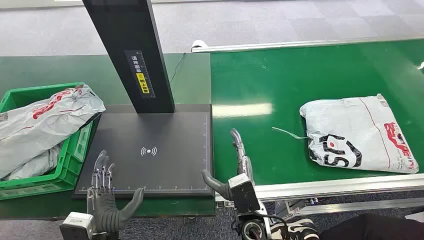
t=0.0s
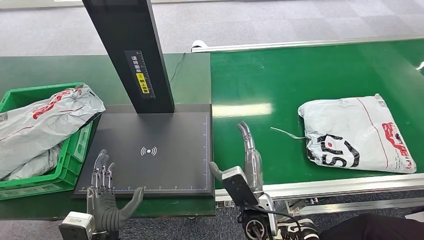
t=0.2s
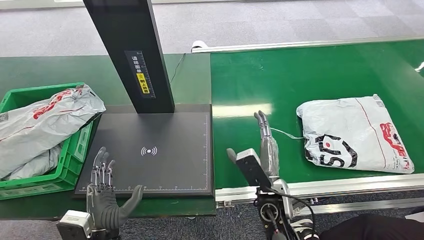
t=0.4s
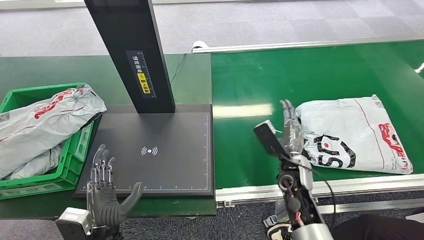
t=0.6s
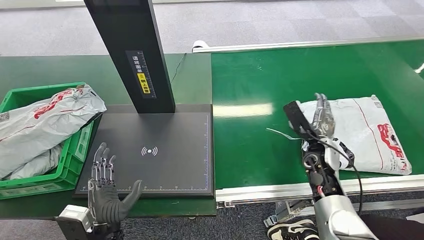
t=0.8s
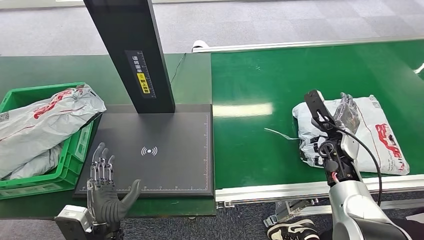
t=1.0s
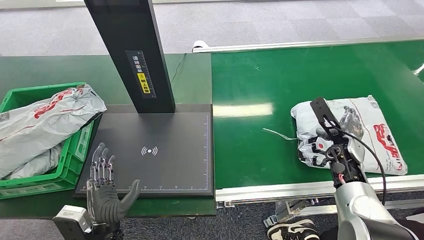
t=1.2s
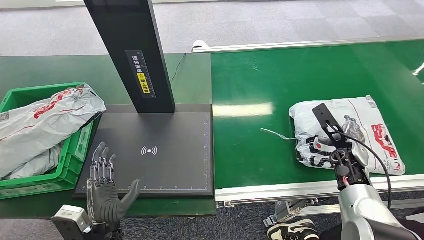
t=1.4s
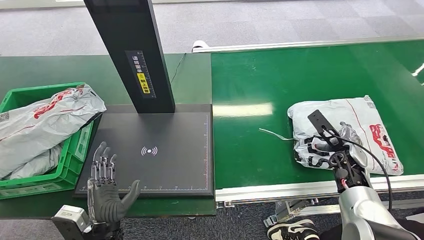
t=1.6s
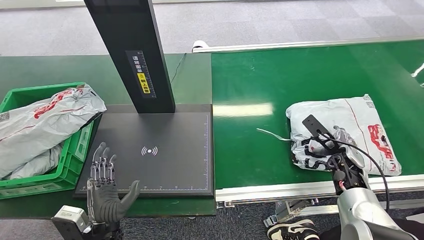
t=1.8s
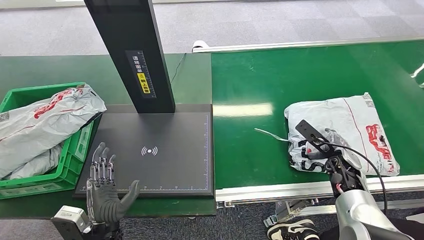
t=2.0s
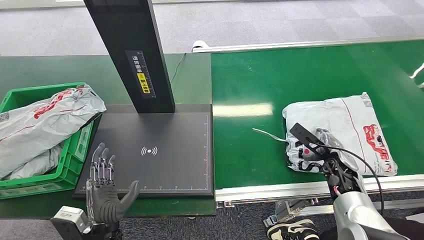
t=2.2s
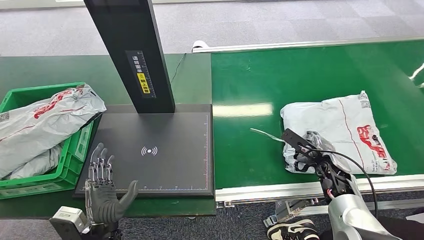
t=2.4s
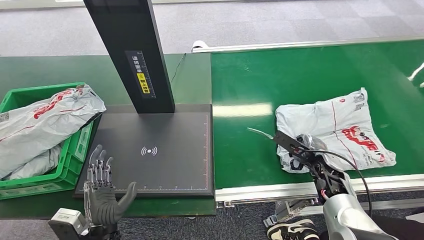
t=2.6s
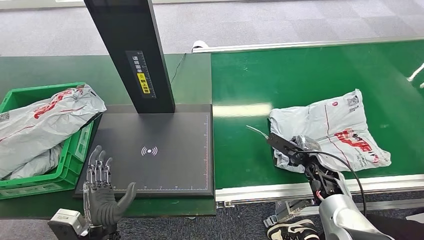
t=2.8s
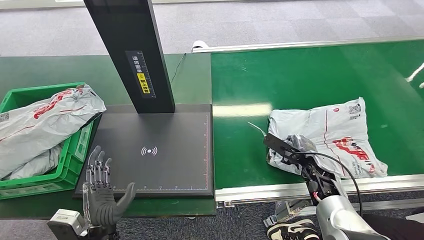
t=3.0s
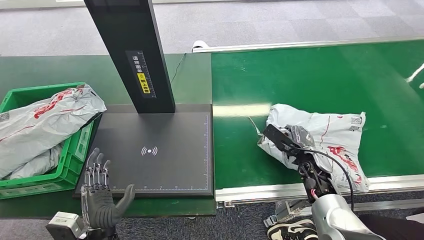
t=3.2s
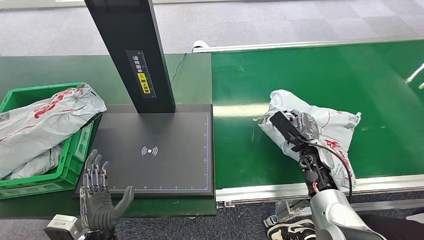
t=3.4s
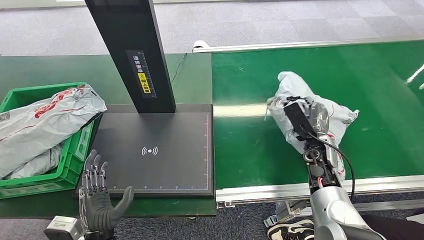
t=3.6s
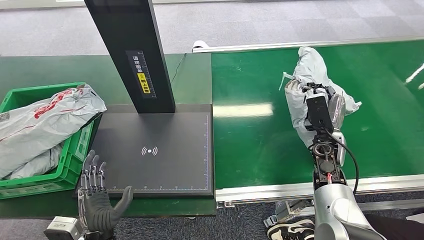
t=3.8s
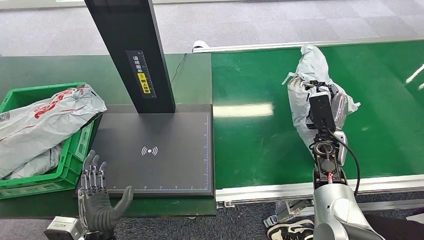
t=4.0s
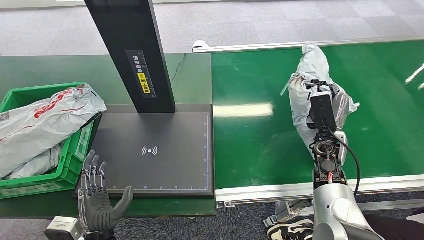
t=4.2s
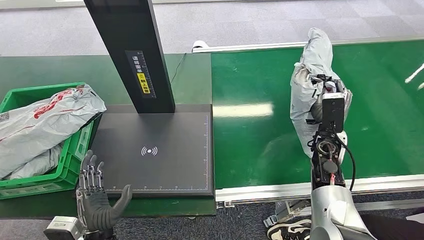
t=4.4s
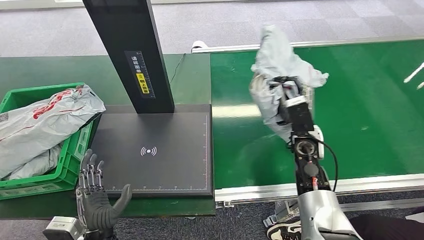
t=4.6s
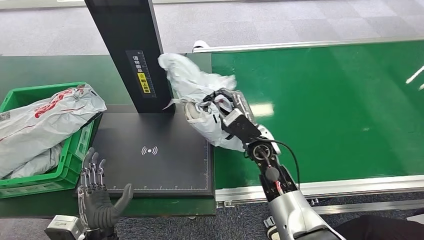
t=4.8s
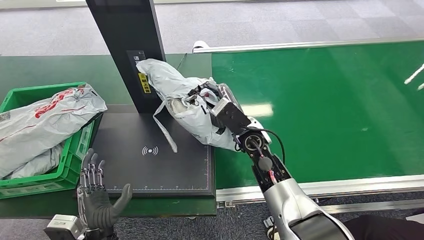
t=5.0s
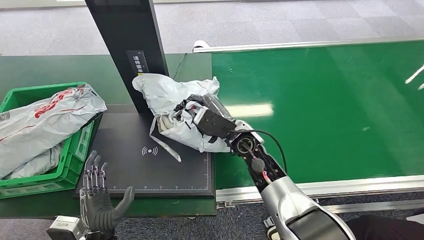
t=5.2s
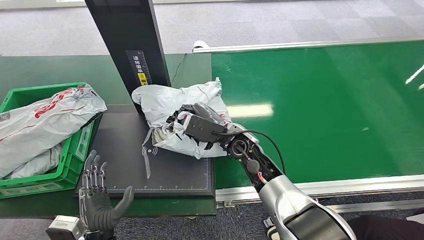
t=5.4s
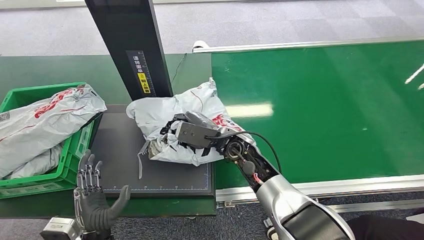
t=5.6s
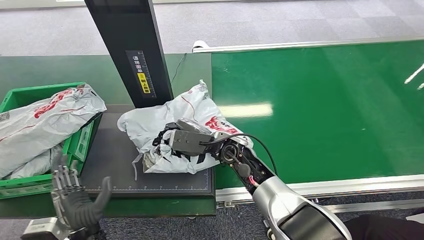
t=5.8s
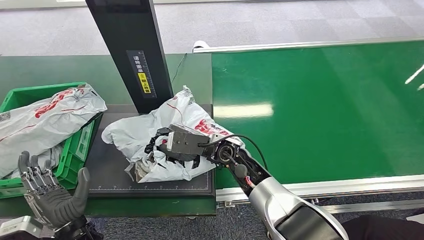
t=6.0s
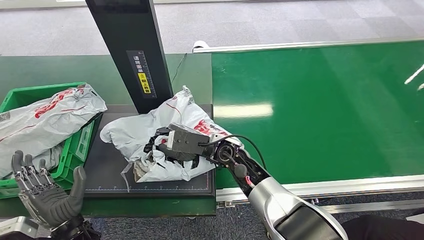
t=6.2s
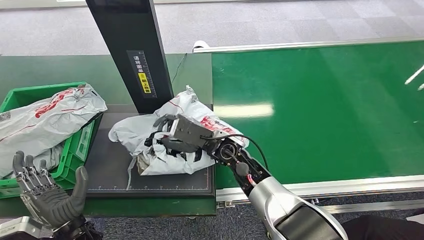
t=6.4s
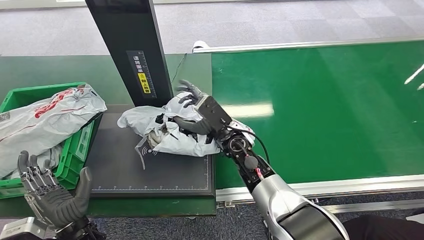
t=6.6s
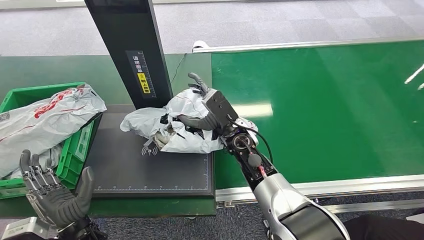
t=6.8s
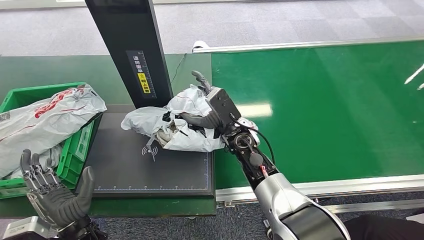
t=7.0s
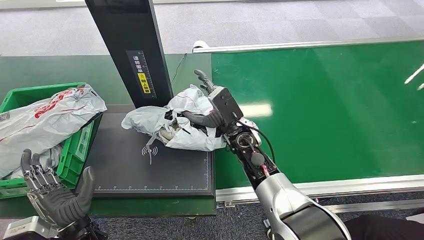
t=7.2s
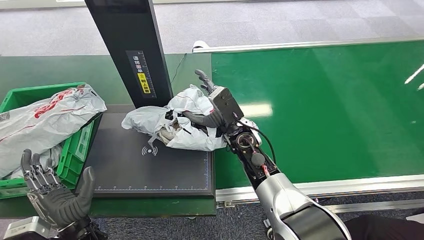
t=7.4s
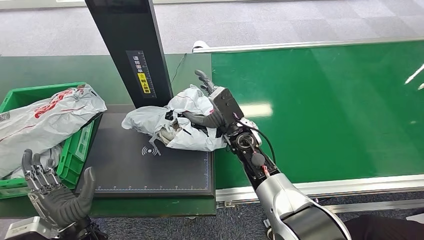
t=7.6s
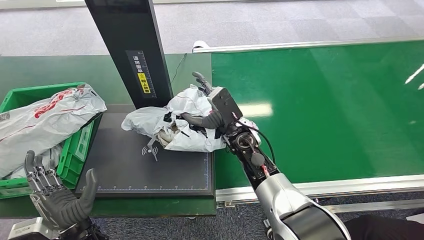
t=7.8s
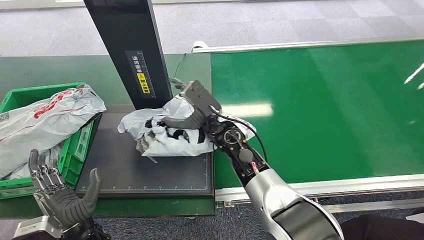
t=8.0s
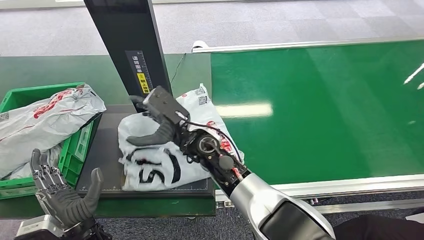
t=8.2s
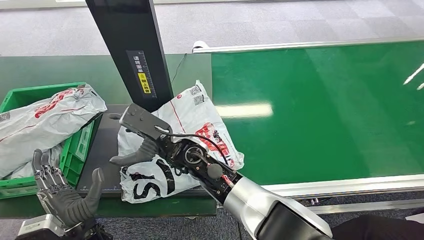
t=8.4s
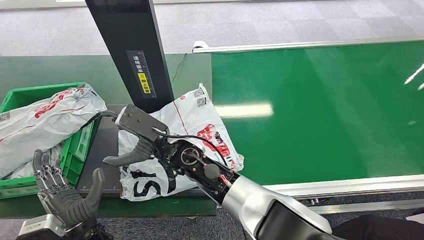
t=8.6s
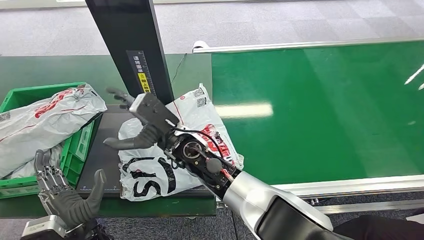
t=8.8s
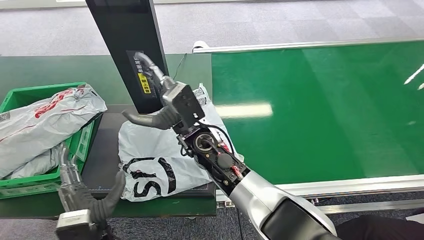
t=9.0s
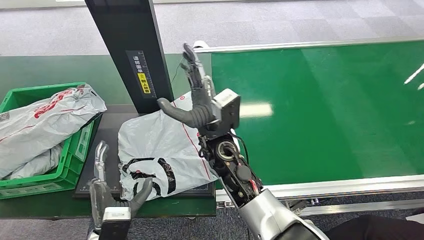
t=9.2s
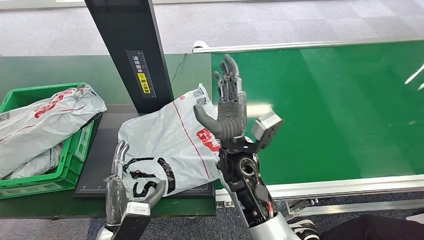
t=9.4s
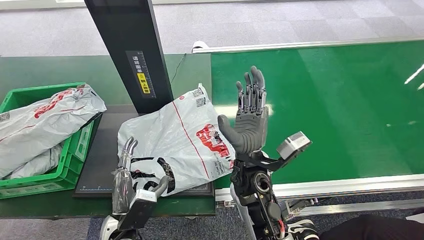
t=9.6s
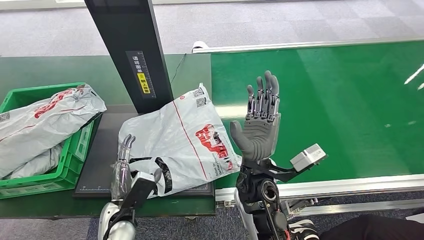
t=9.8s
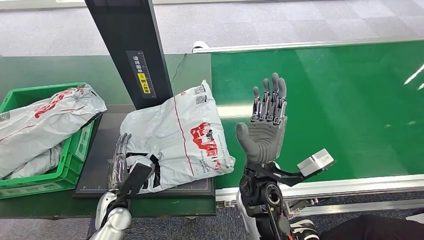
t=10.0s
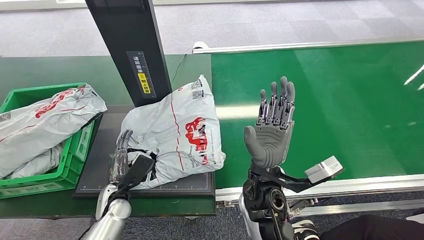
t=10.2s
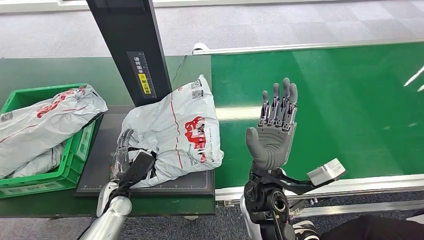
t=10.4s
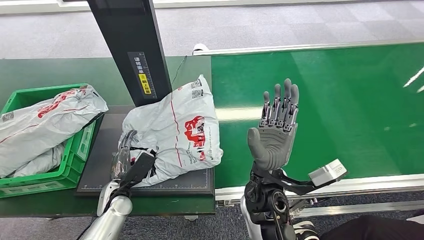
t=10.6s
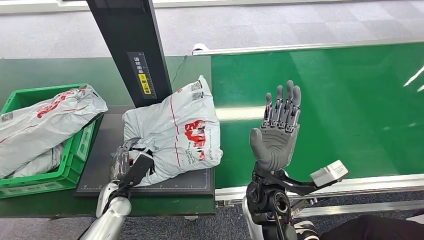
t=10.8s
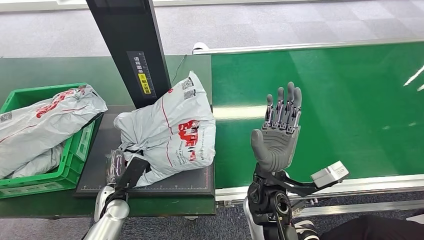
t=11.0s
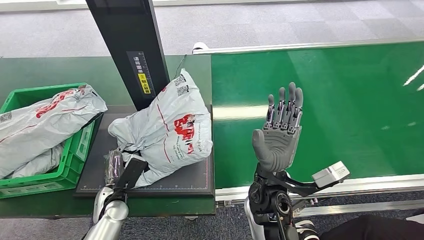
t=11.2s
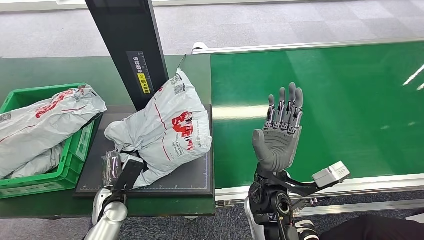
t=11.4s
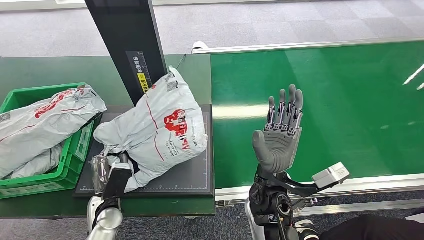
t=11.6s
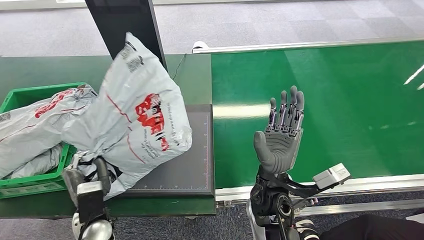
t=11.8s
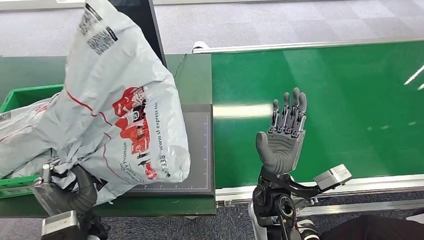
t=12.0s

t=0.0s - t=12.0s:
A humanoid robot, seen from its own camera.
Step, t=0.0s - t=4.0s: Pick up the package from the conveyor belt.
Step, t=4.2s - t=9.4s: Place the package onto the inbound machine.
t=1.6s - t=3.0s: The right hand goes roughly 5 cm to the left.
t=3.0s - t=4.4s: The right hand shifts about 10 cm upward and forward.

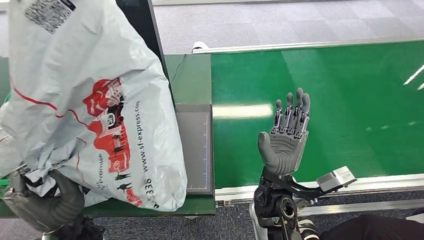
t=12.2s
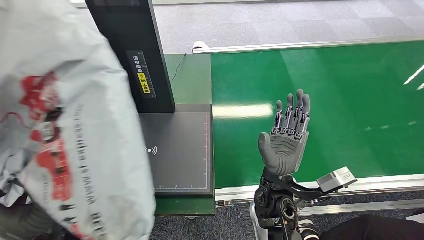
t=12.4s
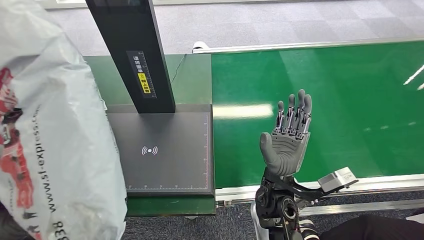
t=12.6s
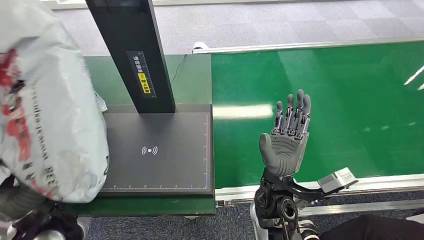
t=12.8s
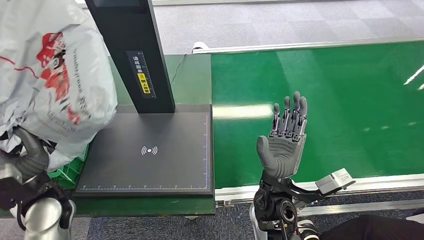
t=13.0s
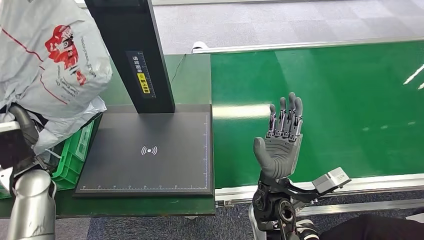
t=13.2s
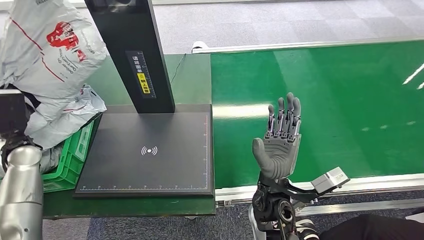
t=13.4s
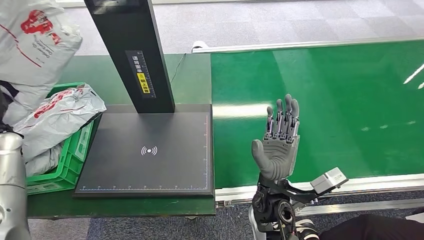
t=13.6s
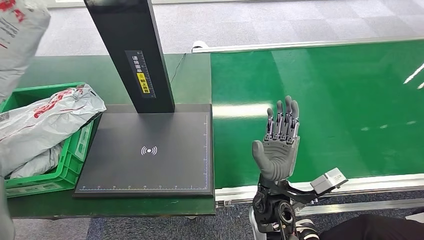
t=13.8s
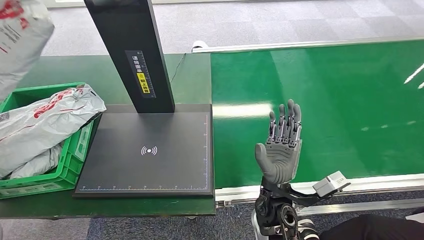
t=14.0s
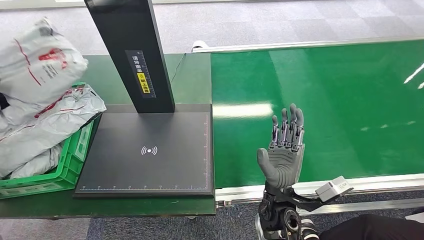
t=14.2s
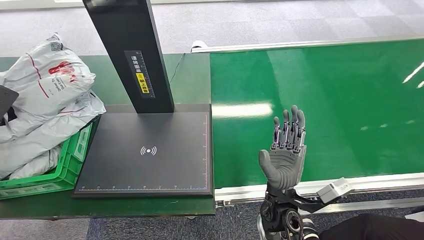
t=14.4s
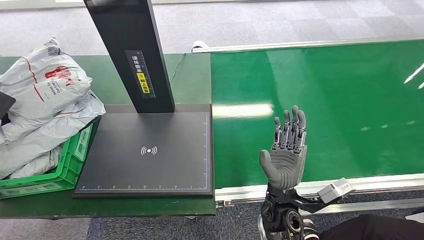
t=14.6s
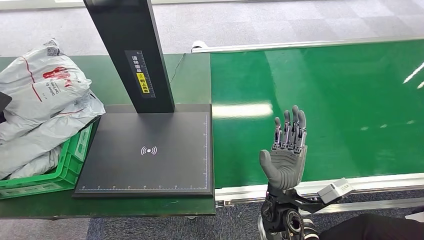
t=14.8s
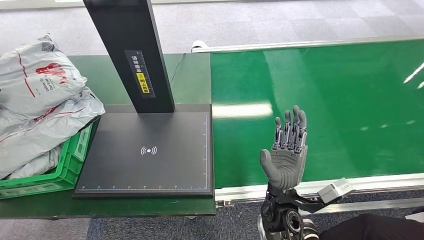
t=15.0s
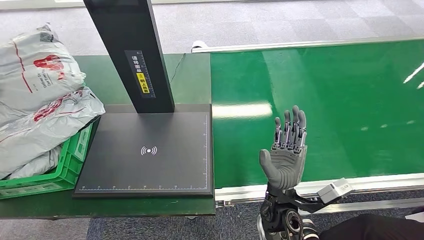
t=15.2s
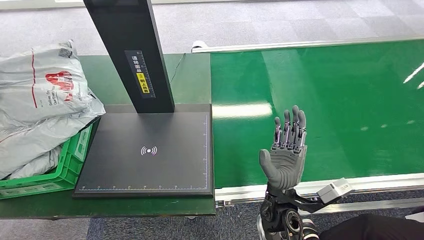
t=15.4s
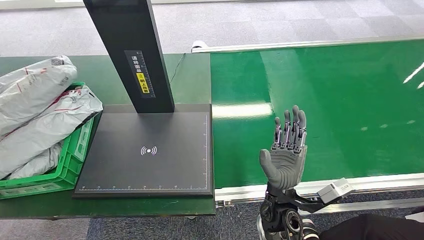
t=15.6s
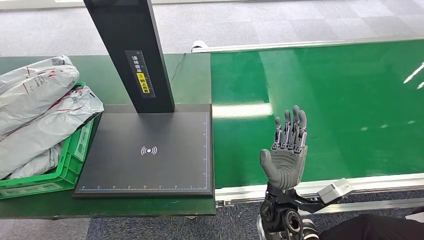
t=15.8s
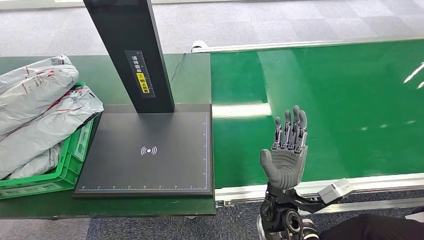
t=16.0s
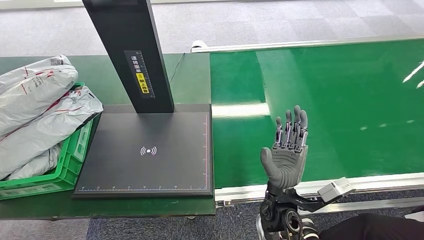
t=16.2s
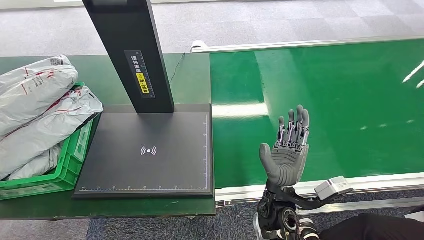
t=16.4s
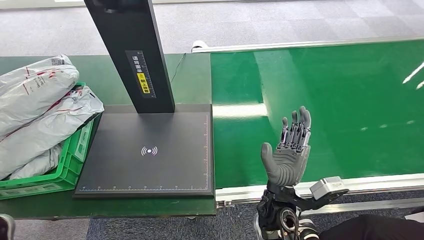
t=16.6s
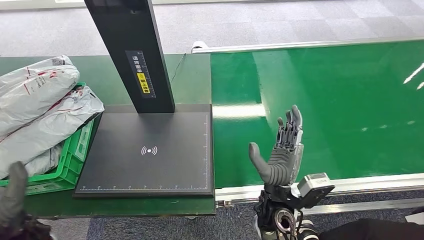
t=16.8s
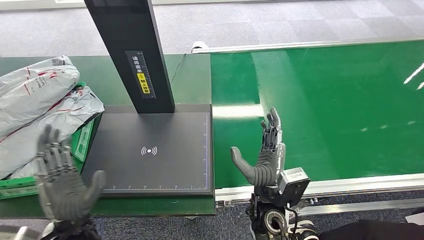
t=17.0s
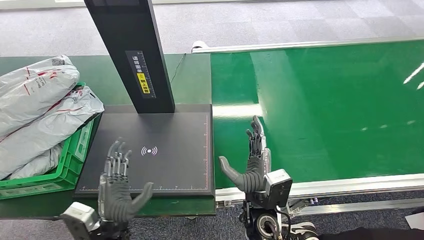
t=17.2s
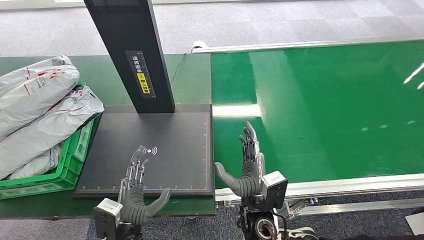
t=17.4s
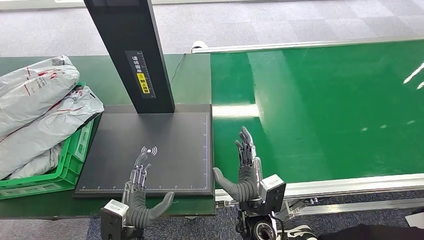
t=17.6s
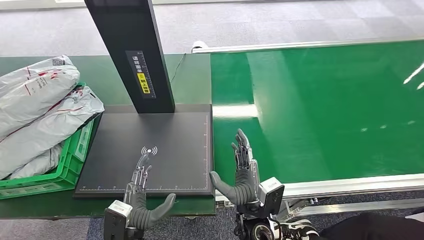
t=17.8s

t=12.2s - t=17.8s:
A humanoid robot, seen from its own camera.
Step, t=12.4s - t=17.6s: Place the package into the parcel locker.
t=13.6s - t=15.0s: The left hand goes roughly 10 cm to the left.
t=15.0s - t=16.4s: The left hand heads to the right, covering about 5 cm.
t=16.4s - t=17.8s: The left hand heads to the right and downward, covering approximately 40 cm, while the right hand travels downward by roughly 5 cm.
